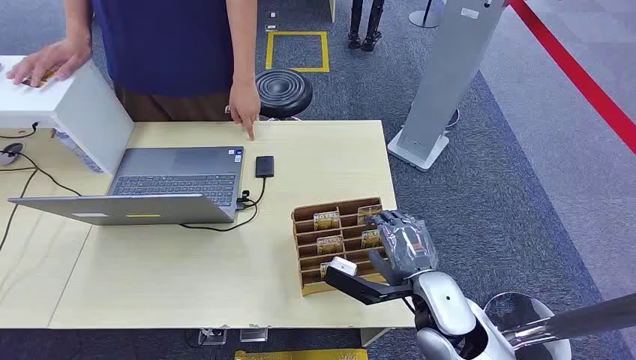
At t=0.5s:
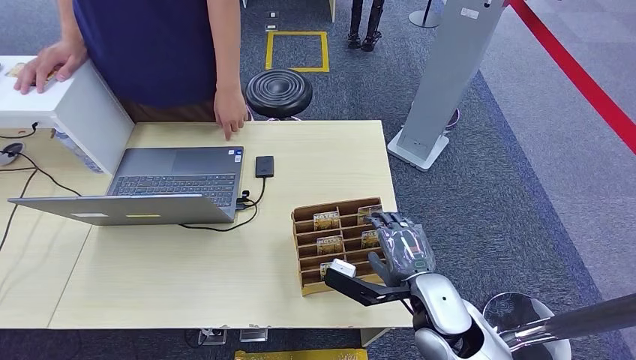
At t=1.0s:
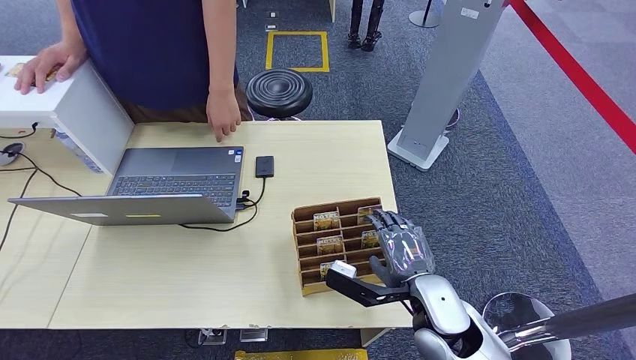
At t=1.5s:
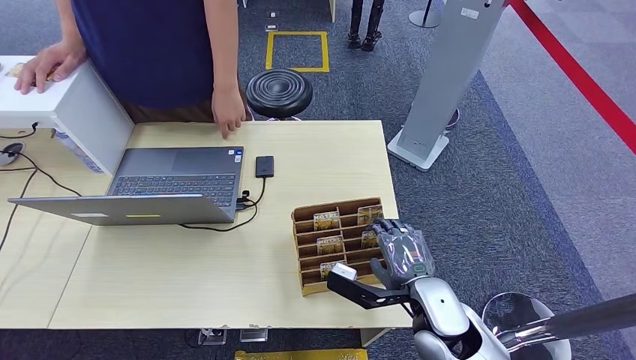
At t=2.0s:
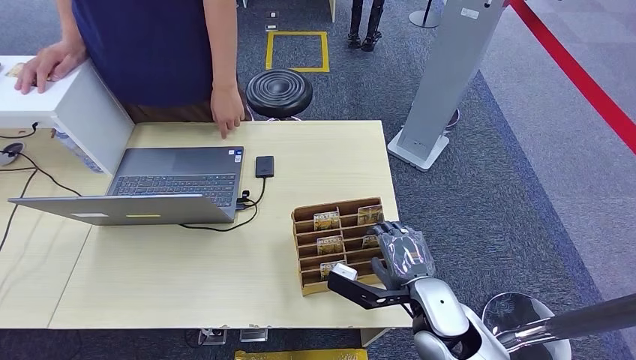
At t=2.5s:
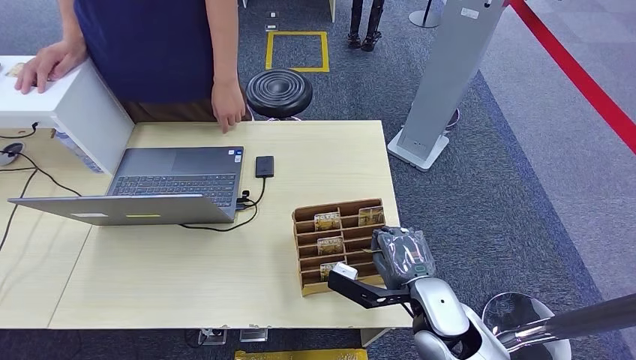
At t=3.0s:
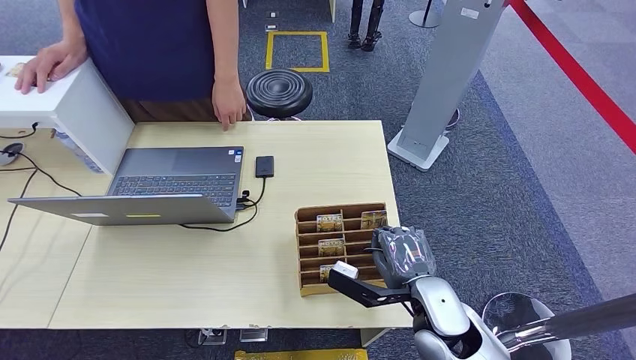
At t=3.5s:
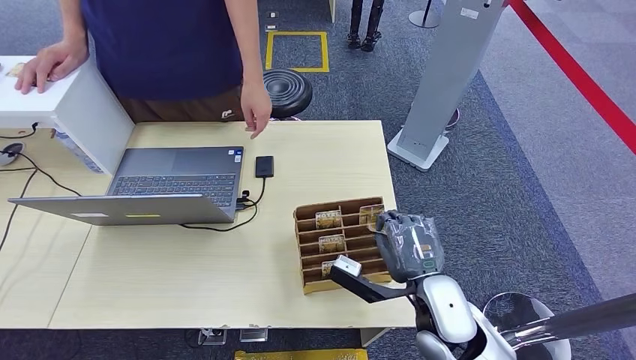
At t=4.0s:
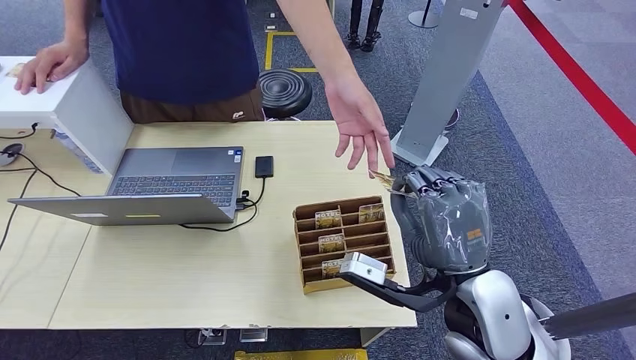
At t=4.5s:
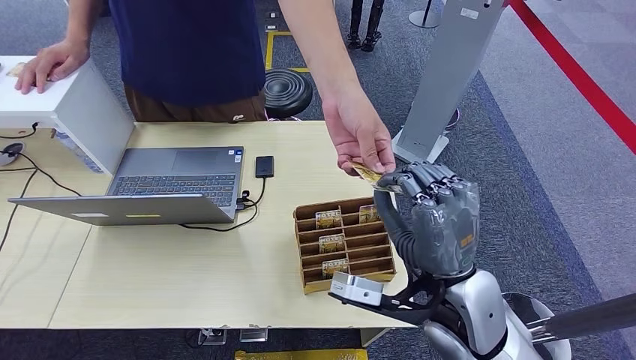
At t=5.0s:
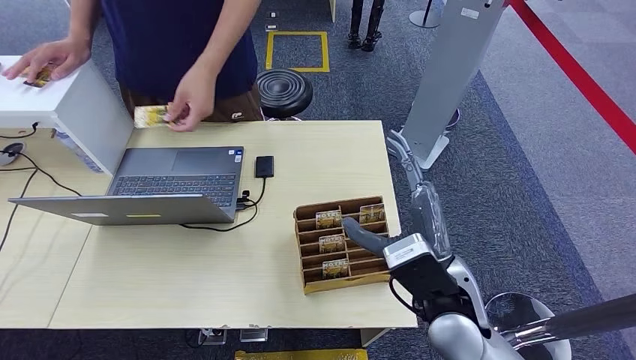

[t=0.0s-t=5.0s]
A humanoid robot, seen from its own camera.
Step, t=0.0s to t=2.5s: Pick up the room card from the card holder.
Step, t=3.0s to t=5.0s: Hand the room card to the target.
t=2.5s to t=5.0s: The right hand shifts about 10 cm upward.
